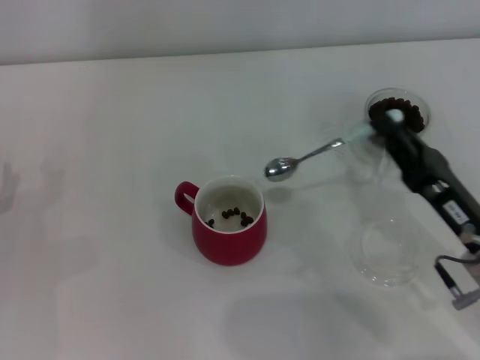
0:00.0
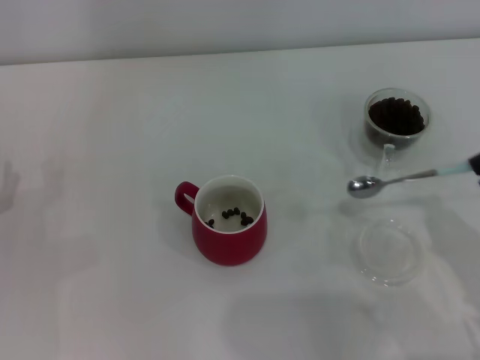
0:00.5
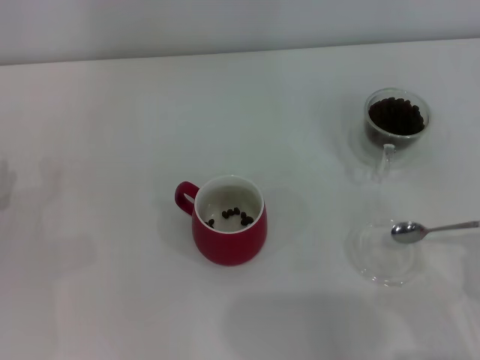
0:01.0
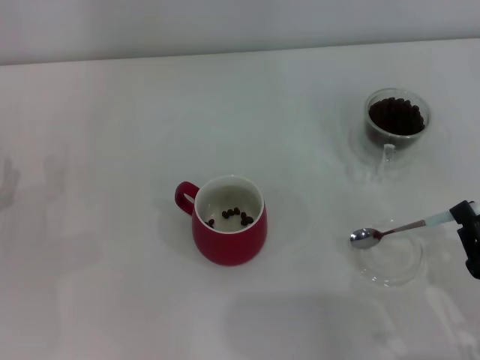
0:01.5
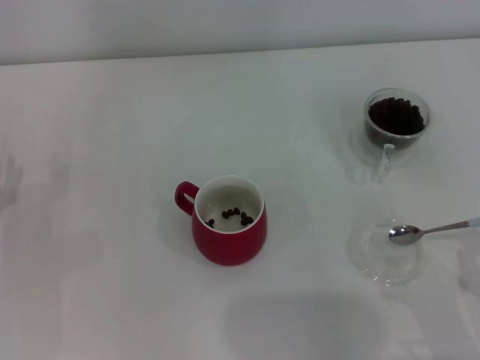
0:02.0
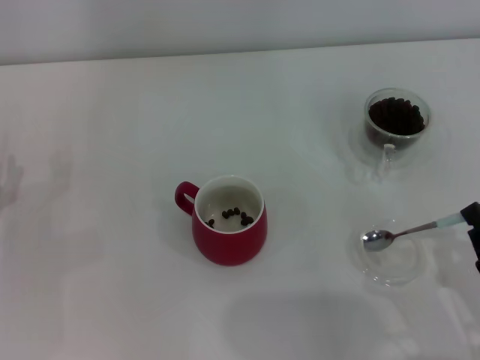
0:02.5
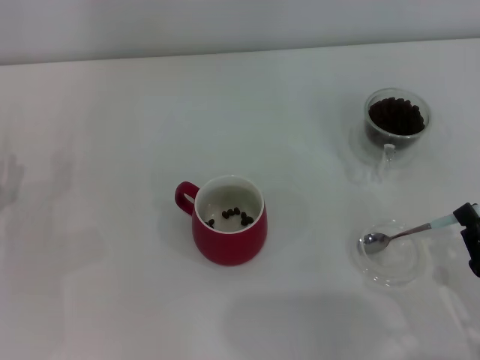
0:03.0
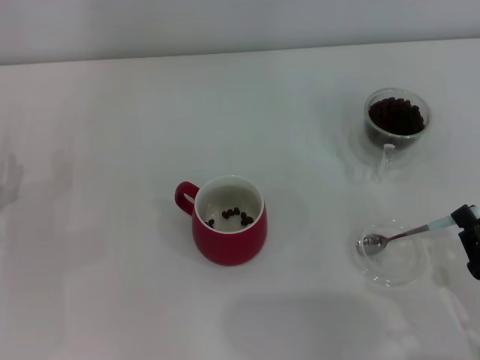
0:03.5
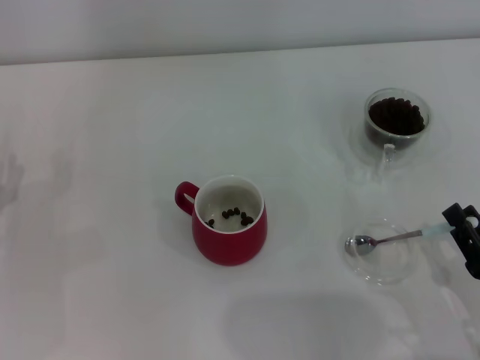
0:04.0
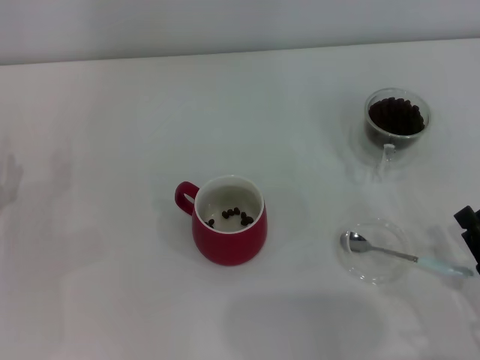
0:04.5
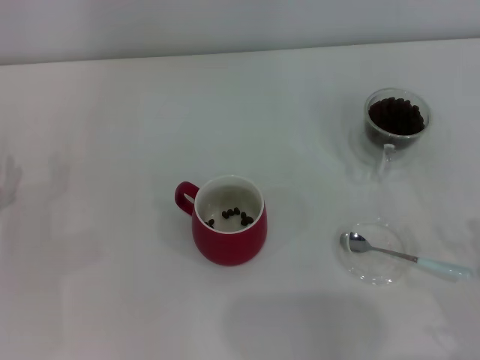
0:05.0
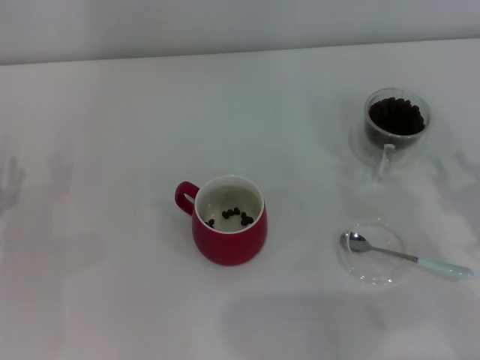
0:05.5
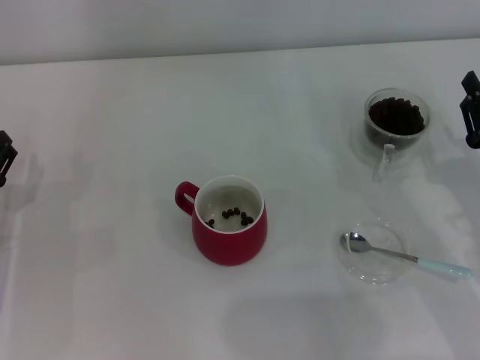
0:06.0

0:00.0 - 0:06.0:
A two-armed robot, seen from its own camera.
Task of the whole recording: Use a blue spoon to take out the coffee beans from the glass and pour them into the red cup.
Step, 0:00.0 - 0:04.5: Place the spoon back in its original place with the right gripper.
0:00.0 - 0:02.0: The right gripper goes roughly 10 cm backward.
0:02.0 - 0:04.0: There are only small adjustments of the grippers.
0:04.0 - 0:06.0: The right gripper is displaced forward by some 10 cm.
